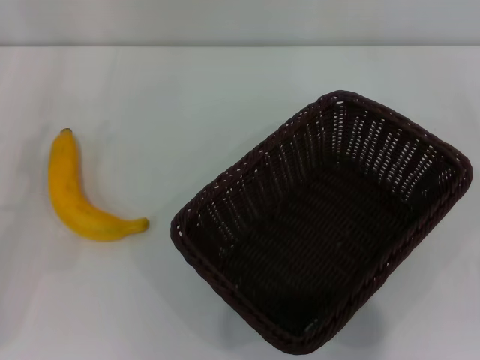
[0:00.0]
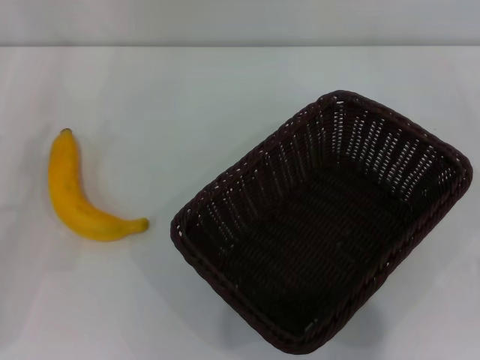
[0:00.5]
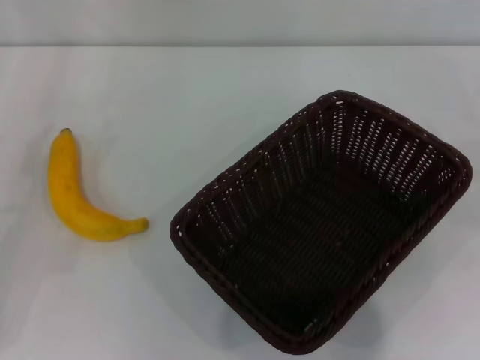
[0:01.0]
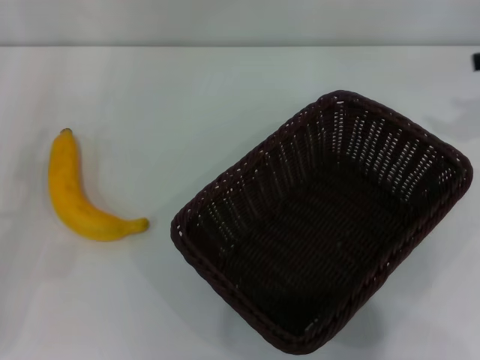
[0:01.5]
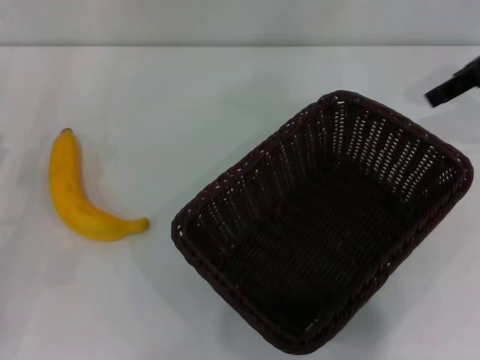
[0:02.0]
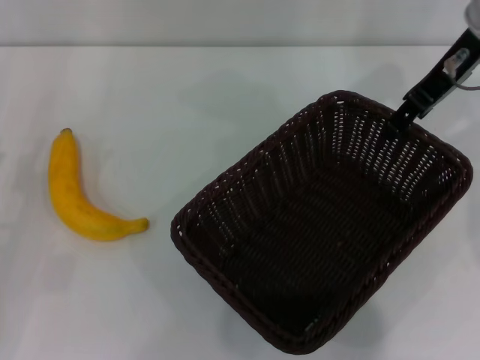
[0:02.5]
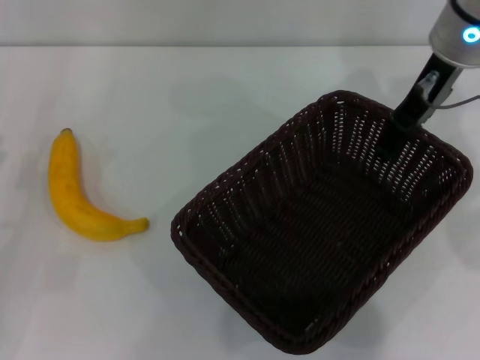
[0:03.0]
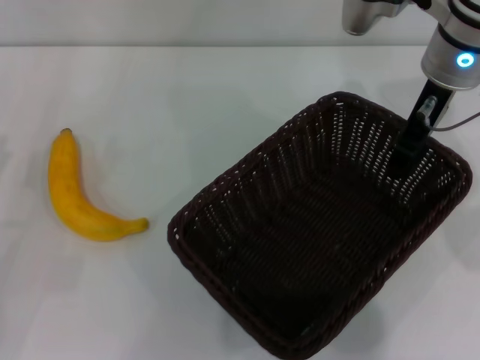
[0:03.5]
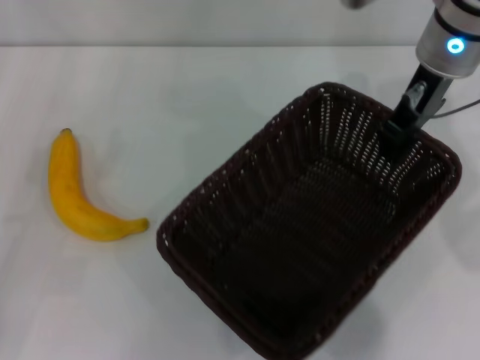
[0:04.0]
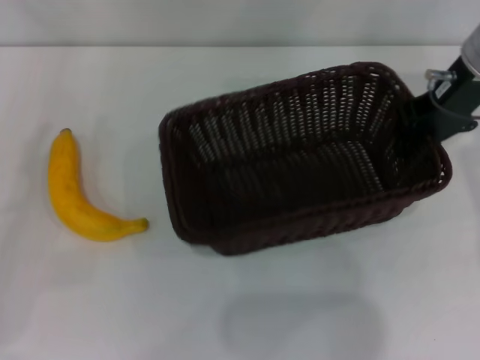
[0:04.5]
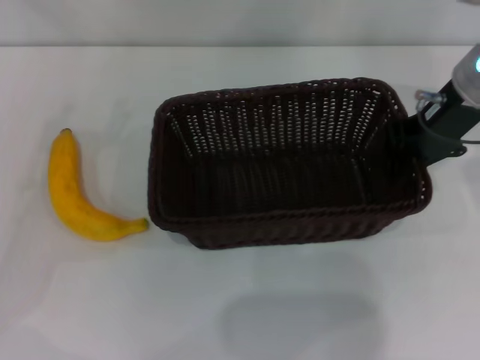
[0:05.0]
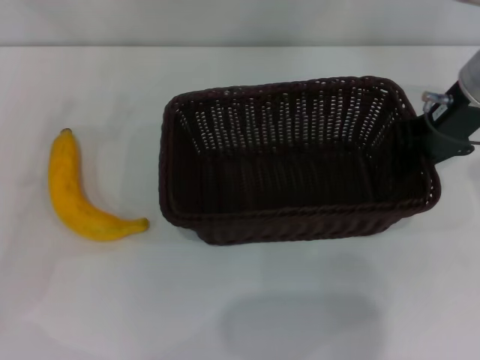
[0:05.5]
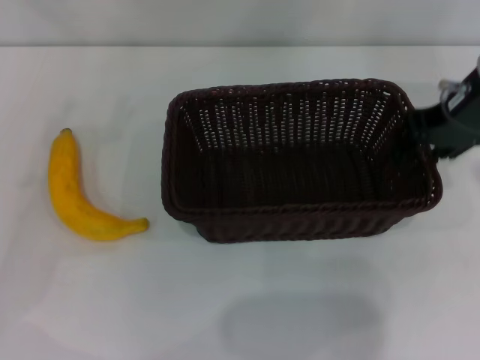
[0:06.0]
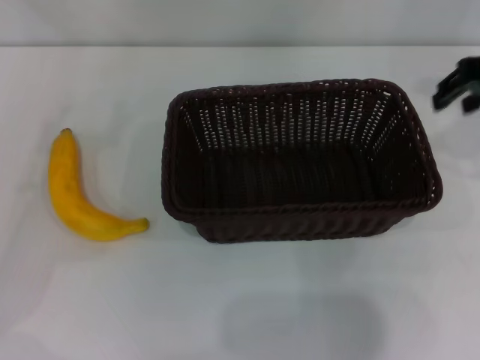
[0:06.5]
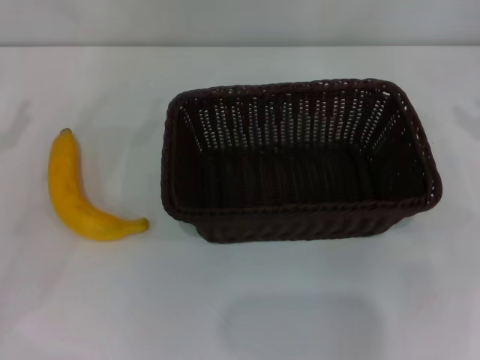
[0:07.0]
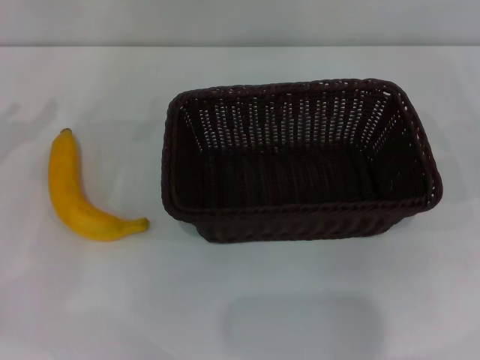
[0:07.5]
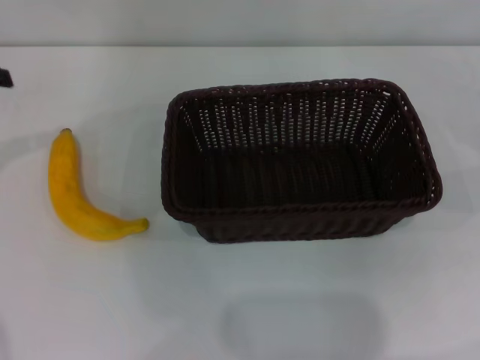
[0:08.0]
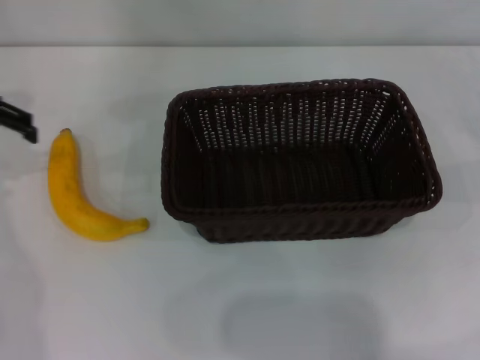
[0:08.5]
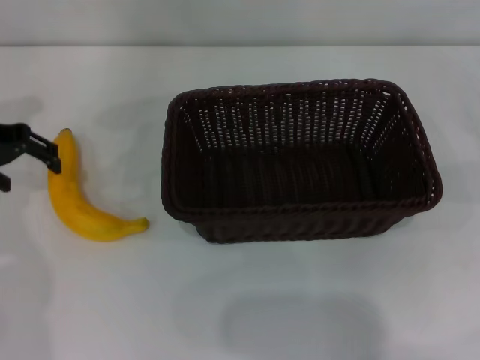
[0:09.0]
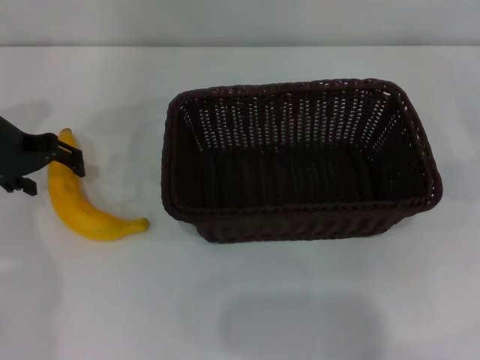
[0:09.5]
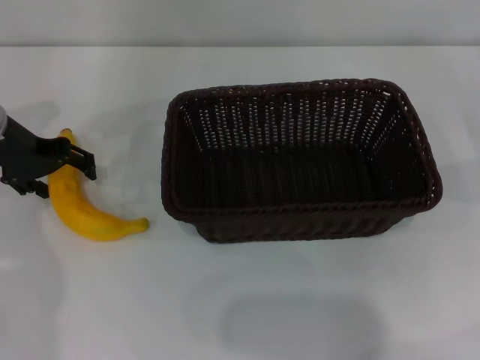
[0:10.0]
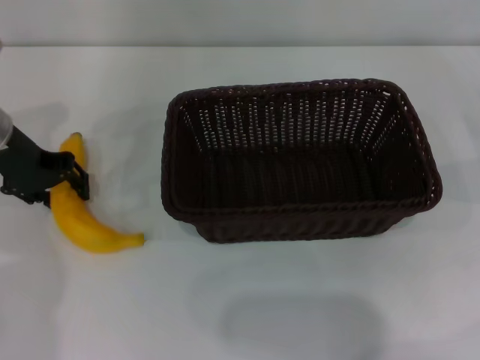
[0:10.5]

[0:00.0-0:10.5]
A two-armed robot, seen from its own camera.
Step, 0:00.0 to 0:04.0: Pick up the dark basket with the right gripper.
Step, 0:04.5 to 0:06.0: Place the dark basket in the center of view with the right gripper.
0:00.0 to 0:02.0: The right gripper shifts about 30 cm upward, forward and to the left.
0:02.0 to 0:04.0: The right gripper travels to the left by approximately 10 cm, and closes up.
0:04.0 to 0:06.5: The right gripper goes roughly 10 cm to the right and backward, and opens.
0:06.5 to 0:08.5: The left gripper shifts some 15 cm upward, forward and to the right, while the right gripper shifts some 25 cm to the right and downward, and opens up.
0:08.5 to 0:10.5: The left gripper travels downward and to the right by some 10 cm, and closes up.

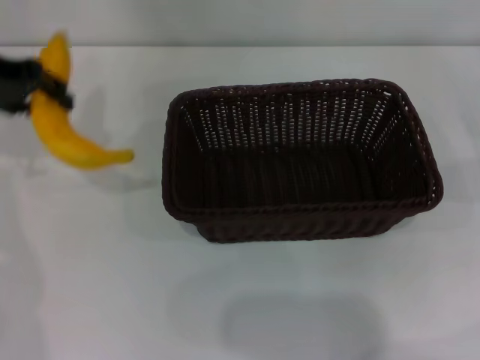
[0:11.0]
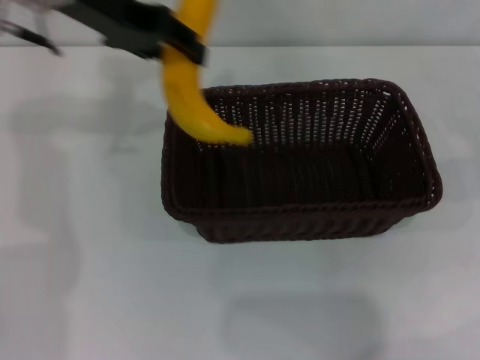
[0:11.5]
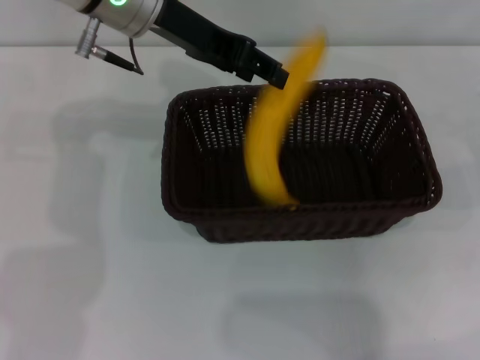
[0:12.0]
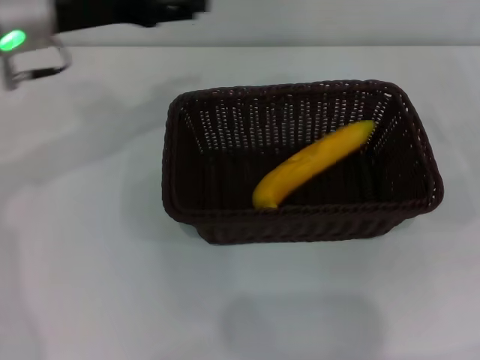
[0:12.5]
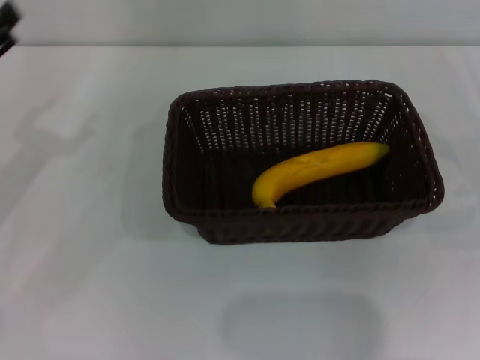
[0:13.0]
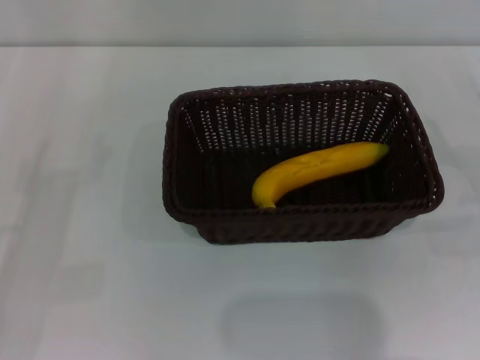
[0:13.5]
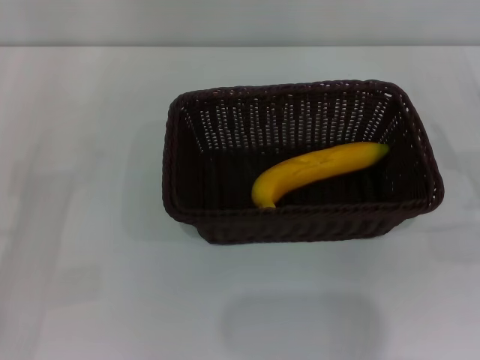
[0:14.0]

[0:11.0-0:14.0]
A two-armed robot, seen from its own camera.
Step, 0:11.0 to 0:12.0: Place the banana into the dark basket with the left gripper.
0:11.0 to 0:12.5: The left gripper moves to the right, some 5 cm, and opens.
0:12.5 to 0:14.0: The left gripper goes roughly 25 cm backward, downward and to the left. Meanwhile the right gripper heads downward, covering some 5 cm.
